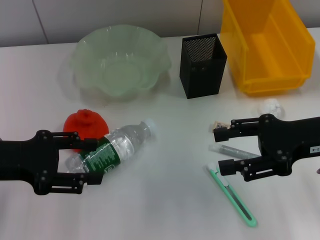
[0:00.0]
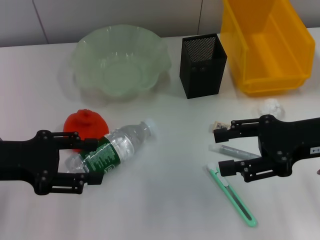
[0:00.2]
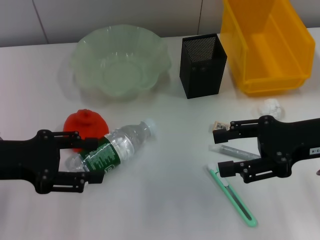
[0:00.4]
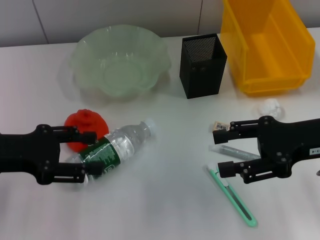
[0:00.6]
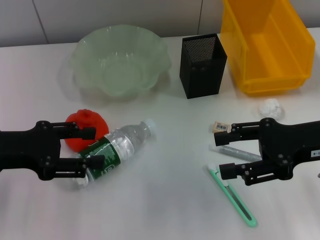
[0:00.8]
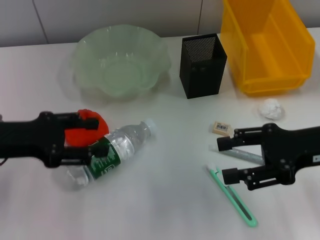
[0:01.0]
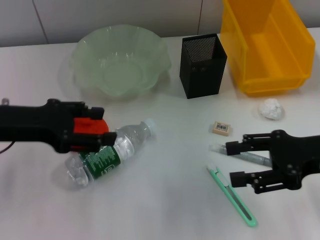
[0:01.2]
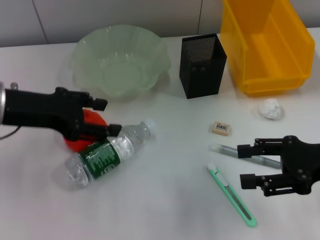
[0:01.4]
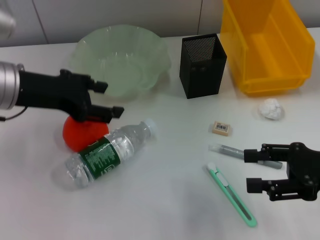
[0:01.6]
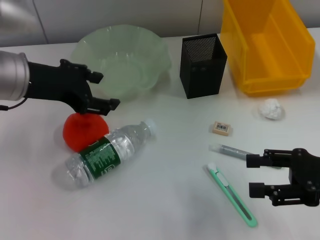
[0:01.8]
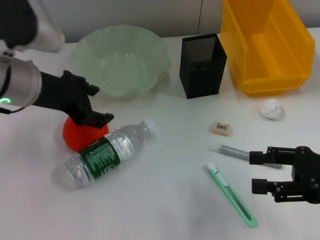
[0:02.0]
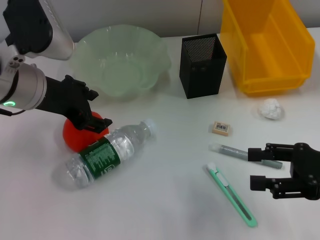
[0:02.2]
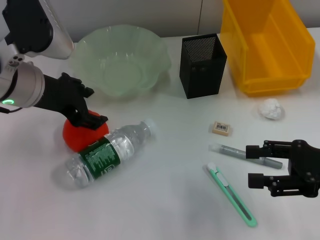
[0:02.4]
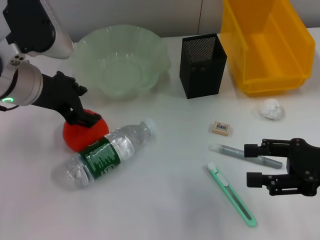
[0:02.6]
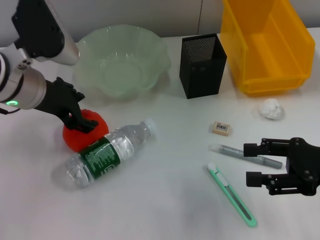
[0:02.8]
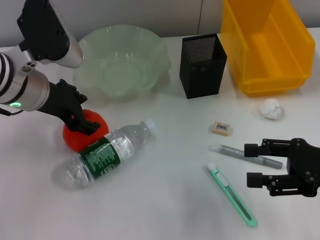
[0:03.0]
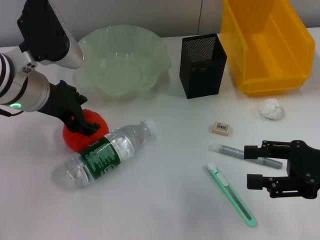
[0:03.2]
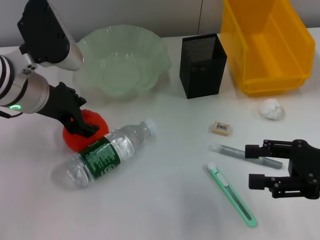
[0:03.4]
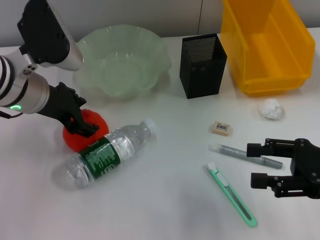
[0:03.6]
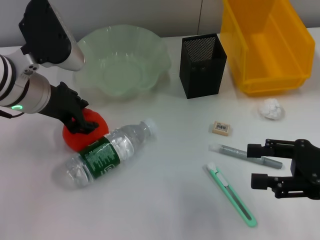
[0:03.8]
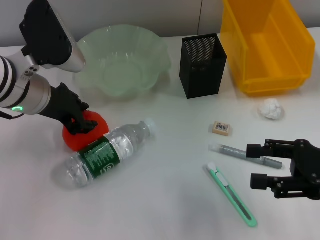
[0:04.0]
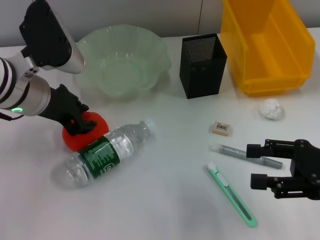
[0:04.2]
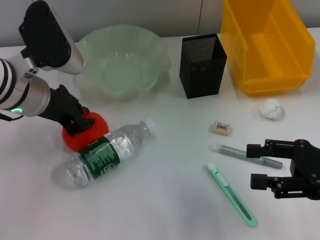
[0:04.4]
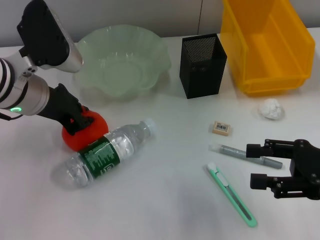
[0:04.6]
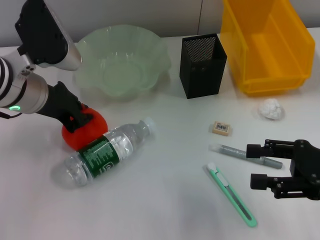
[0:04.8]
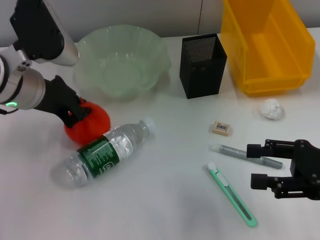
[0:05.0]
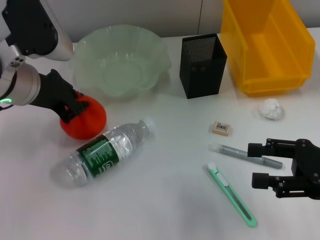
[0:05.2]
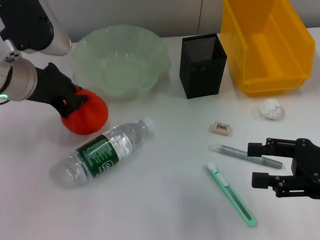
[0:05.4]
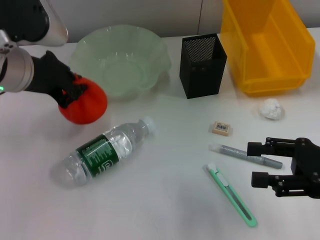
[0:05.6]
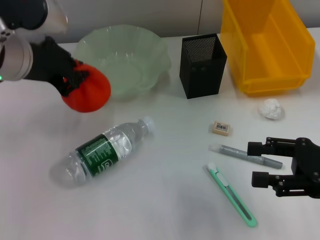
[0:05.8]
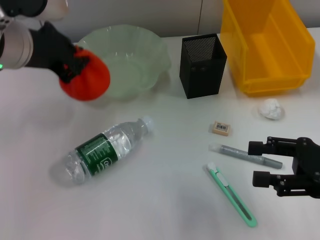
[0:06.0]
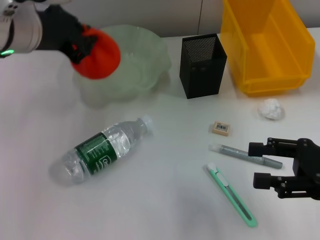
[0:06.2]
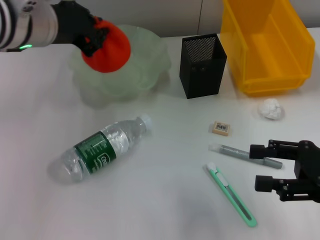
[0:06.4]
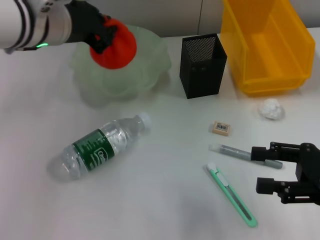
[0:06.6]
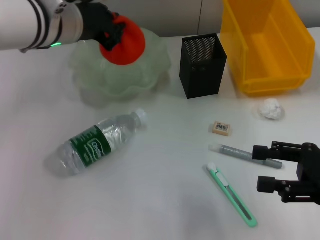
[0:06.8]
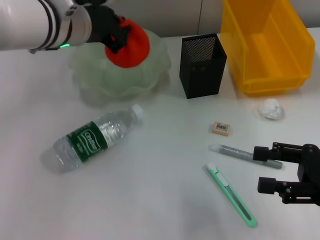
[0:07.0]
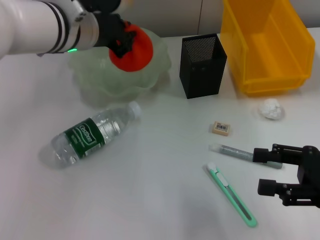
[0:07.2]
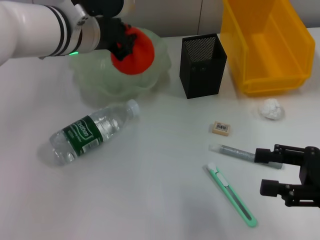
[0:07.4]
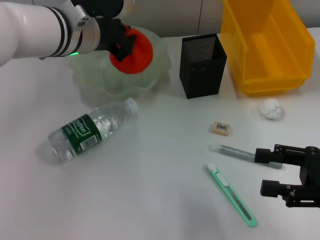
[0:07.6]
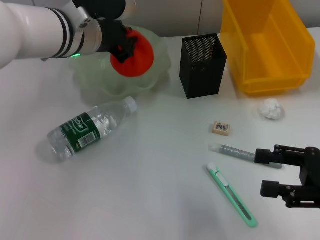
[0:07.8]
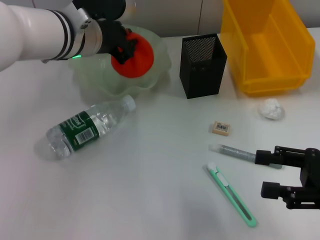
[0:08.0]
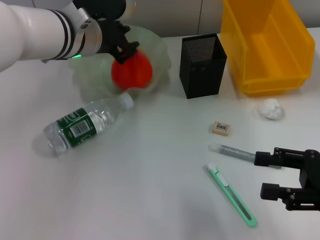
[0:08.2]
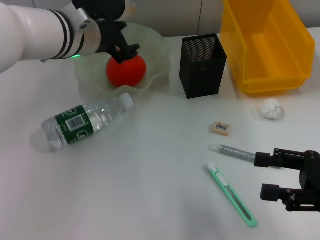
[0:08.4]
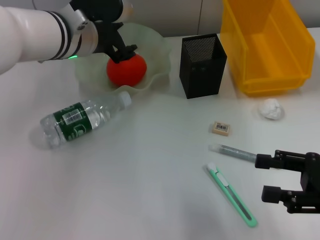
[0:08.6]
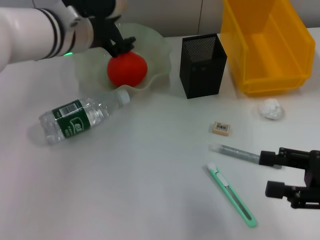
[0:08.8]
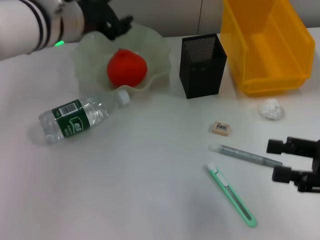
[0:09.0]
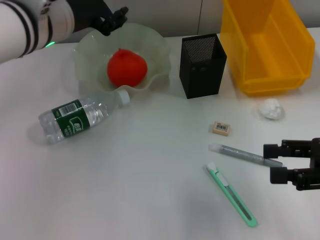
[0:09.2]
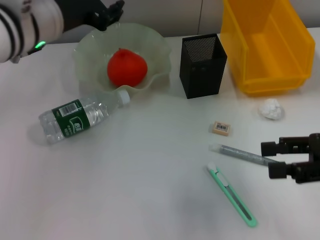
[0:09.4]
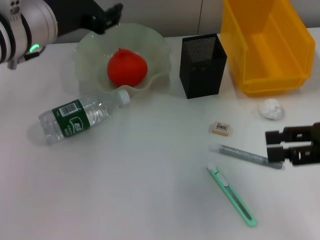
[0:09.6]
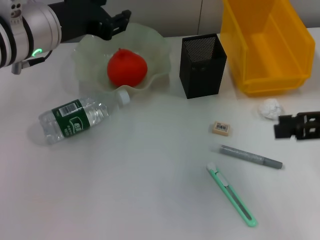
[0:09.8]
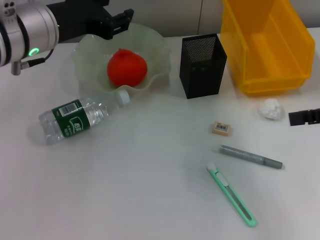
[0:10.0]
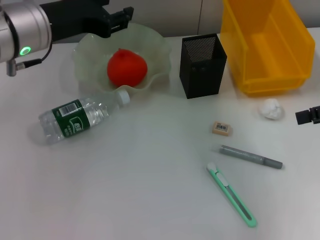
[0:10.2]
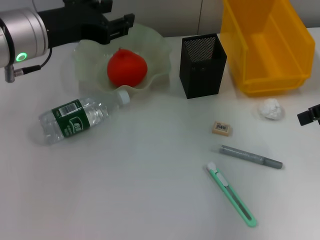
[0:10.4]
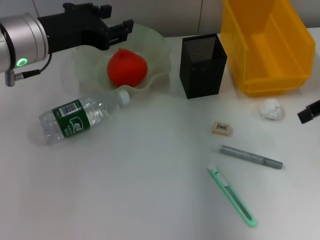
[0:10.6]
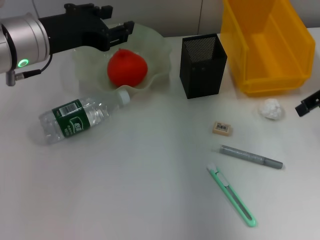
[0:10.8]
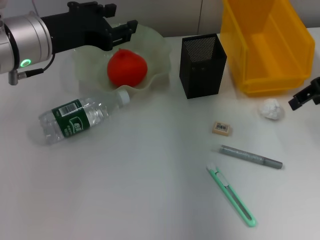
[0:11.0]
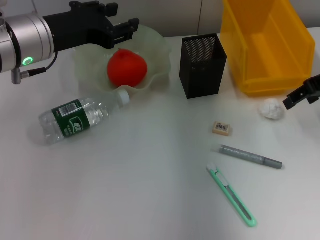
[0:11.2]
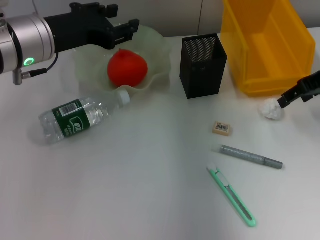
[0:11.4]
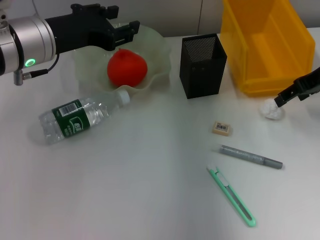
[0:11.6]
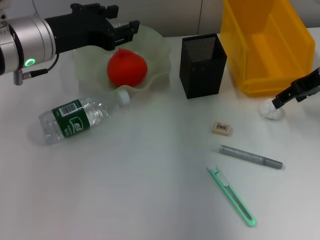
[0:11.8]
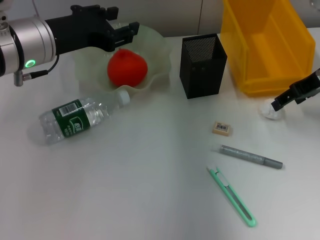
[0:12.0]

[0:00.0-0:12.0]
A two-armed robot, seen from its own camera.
Step, 0:00.0 to 0:04.6: Grab the orange with the left hand.
Step, 0:05.0 to 0:08.4: Place the orange into the fruit bowl with the left hand.
0:00.0 to 0:01.6: The left gripper travels to the right, forward and upward by about 10 cm; the right gripper shifts by roughly 5 cm.
0:03.0 to 0:04.4: The left gripper closes its fingers.
0:04.4 to 0:06.0: The left gripper moves upward, approximately 5 cm.
0:06.0 to 0:07.6: The left gripper moves to the right and forward, about 10 cm.
0:07.6 to 0:09.0: The left gripper opens.
0:09.0 to 0:10.4: The right gripper is displaced forward and upward by about 15 cm; the left gripper changes place by approximately 5 cm.
0:10.4 to 0:12.0: The right gripper is displaced forward by approximately 10 cm.

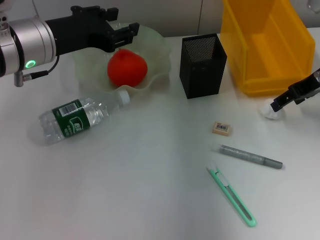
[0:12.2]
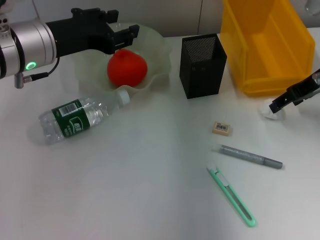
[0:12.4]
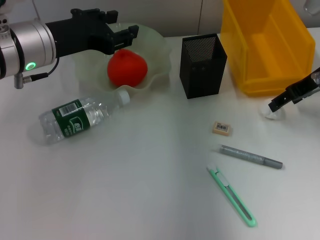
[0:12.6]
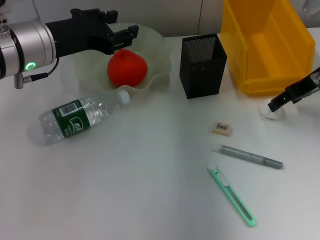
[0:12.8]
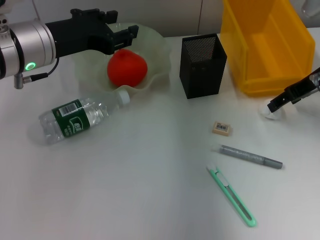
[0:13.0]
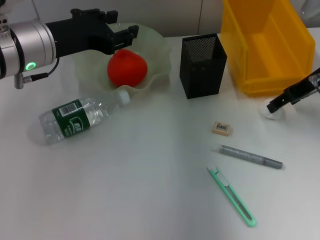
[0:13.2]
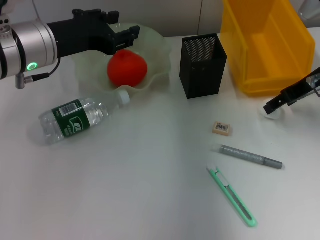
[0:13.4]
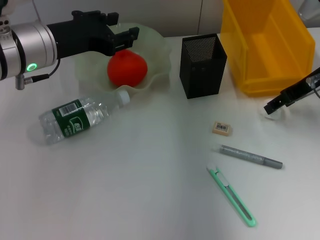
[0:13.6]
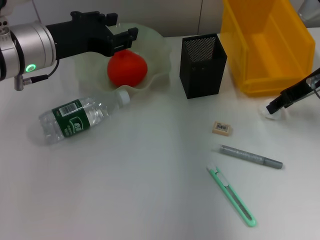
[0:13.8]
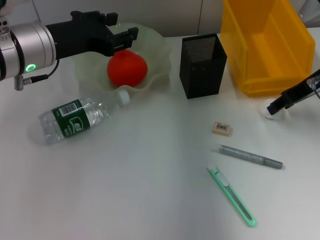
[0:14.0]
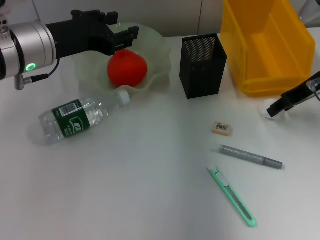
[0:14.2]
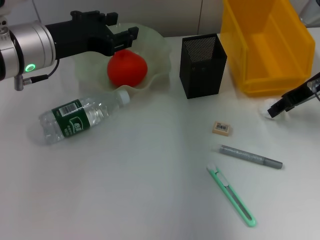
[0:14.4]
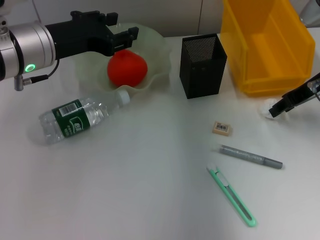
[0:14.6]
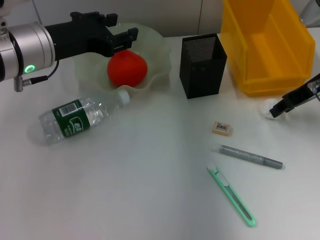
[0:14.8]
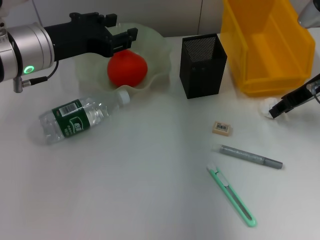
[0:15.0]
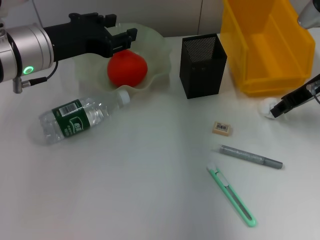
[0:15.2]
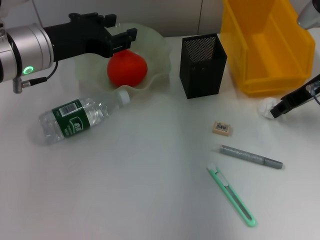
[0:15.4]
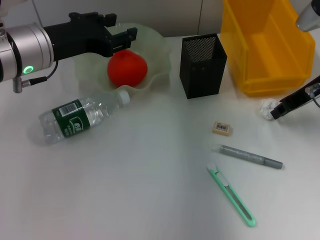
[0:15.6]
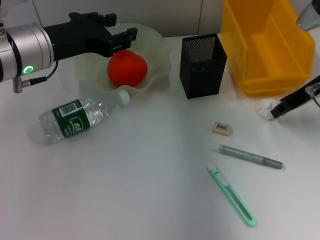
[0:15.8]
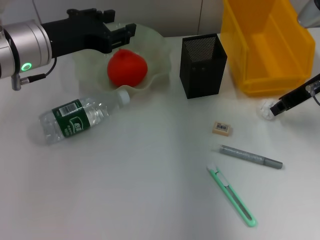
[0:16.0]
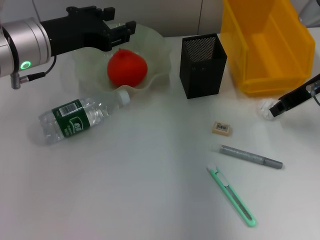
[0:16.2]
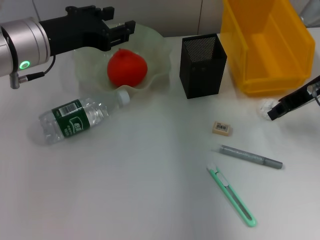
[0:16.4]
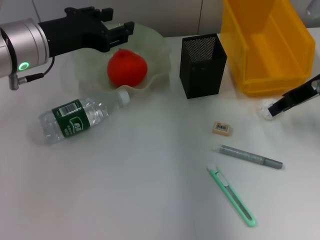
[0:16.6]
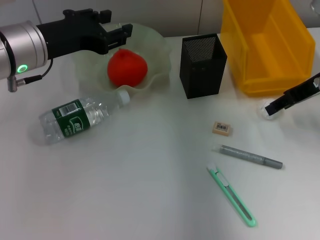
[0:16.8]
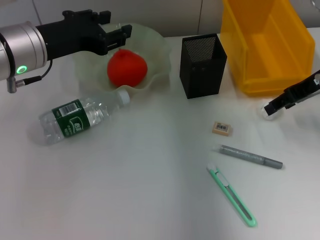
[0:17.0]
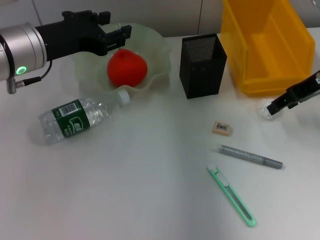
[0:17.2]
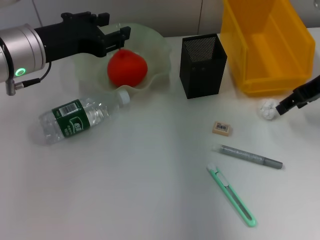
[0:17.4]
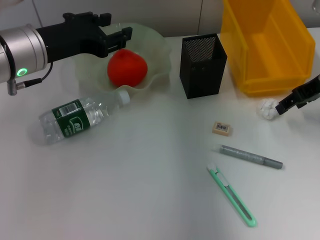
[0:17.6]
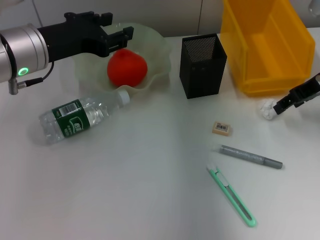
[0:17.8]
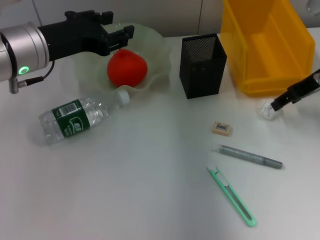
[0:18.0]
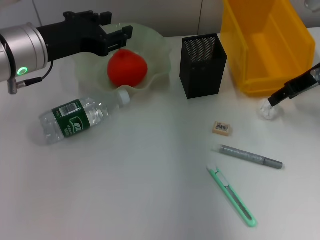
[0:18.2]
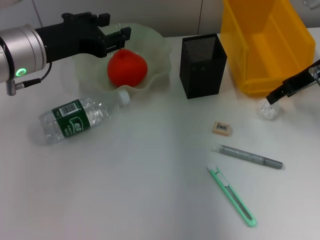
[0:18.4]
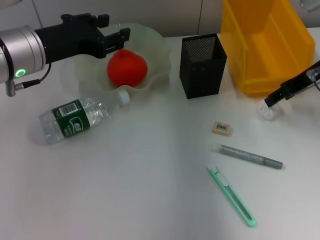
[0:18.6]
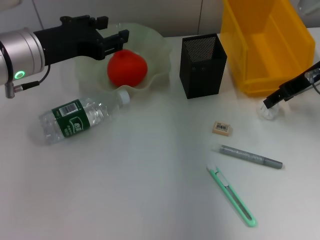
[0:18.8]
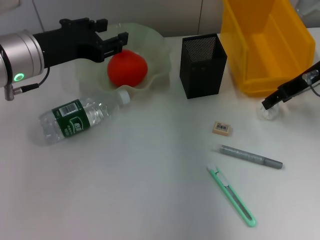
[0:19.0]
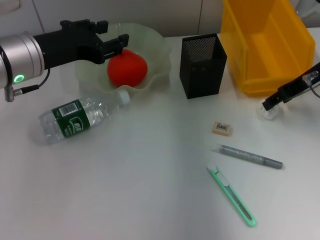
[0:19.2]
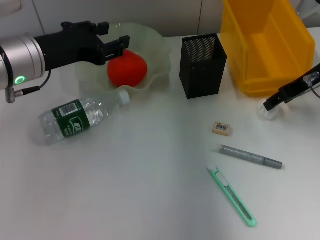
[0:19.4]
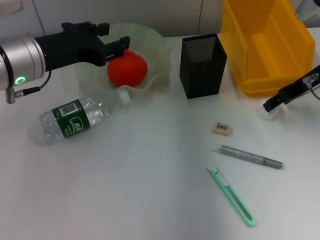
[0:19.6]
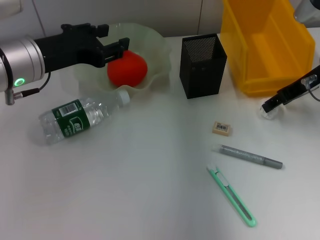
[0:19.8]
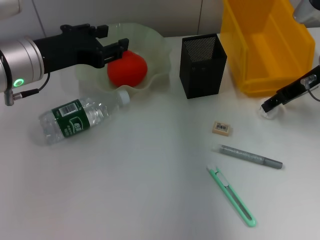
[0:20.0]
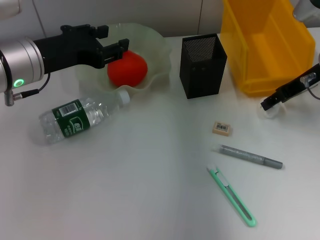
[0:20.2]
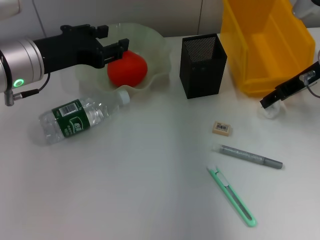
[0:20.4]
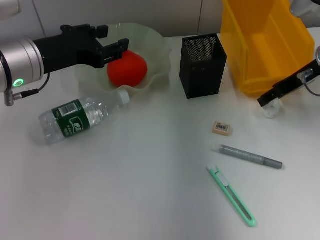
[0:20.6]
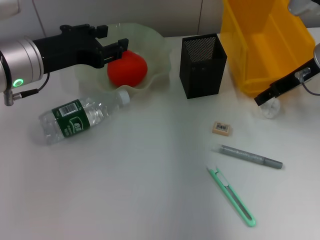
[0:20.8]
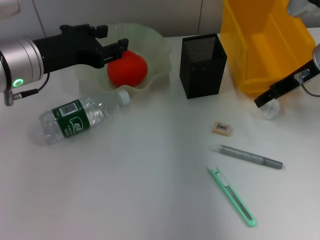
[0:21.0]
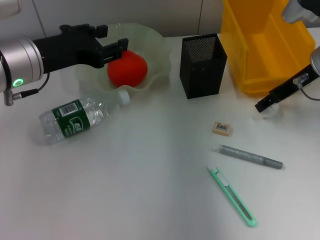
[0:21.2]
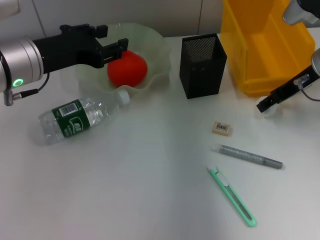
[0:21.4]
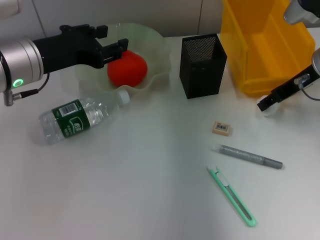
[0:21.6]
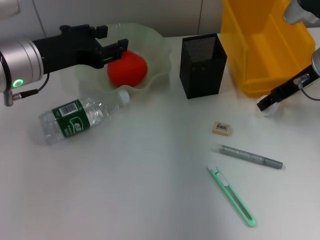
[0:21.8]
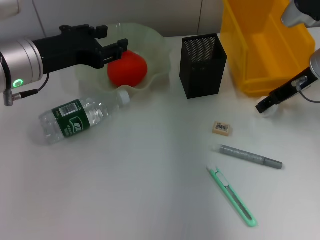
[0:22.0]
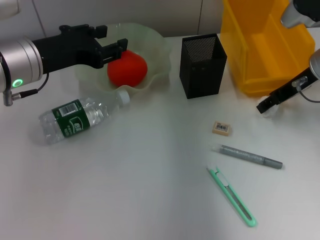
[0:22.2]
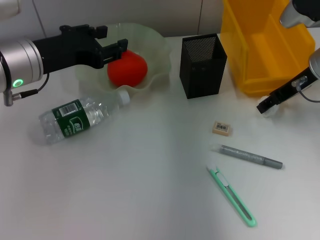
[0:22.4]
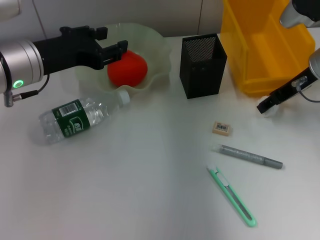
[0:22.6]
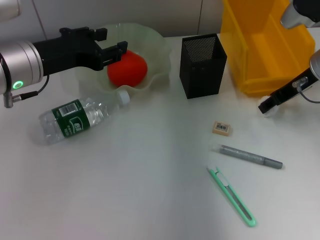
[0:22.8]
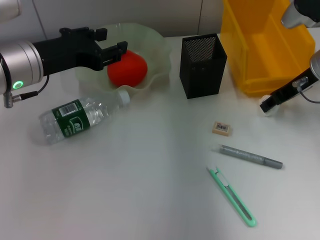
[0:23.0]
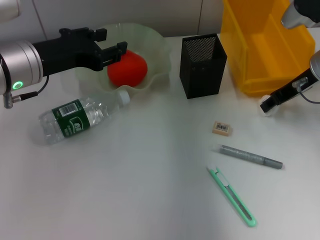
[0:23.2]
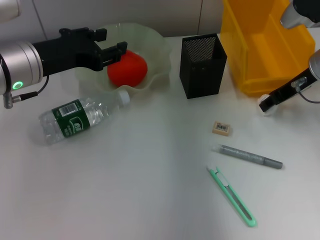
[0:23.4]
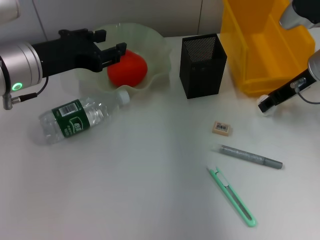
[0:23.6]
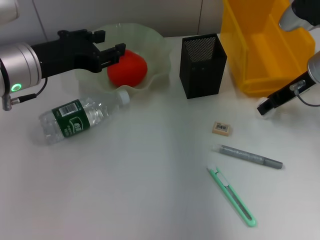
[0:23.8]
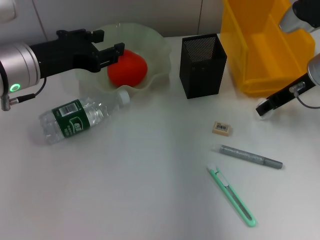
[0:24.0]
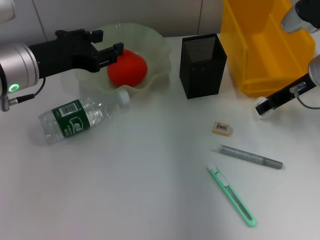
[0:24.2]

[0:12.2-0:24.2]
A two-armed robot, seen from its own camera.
Step, 0:12.2 to 0:23.0: Grab the paper ball with the right hand.
0:12.2 to 0:13.8: The two grippers keep their place.
0:13.8 to 0:15.2: The right gripper closes up.
0:15.2 to 0:16.6: There are only small adjustments of the grippers.
0:16.6 to 0:18.2: The right gripper opens up.
0:18.2 to 0:21.2: There are only small adjustments of the grippers.
0:21.2 to 0:22.6: Both grippers stay about where they are.
0:22.6 to 0:24.2: The grippers stay close to where they were, moving slightly.
